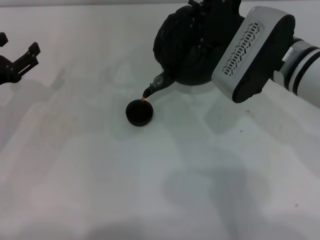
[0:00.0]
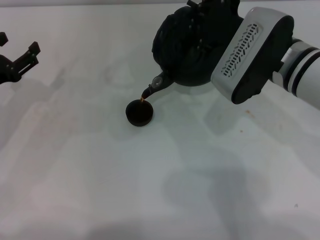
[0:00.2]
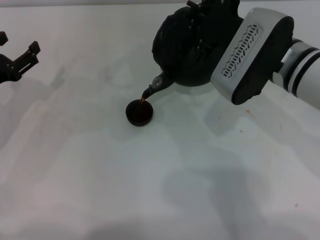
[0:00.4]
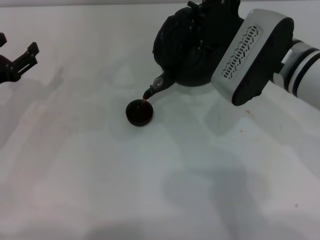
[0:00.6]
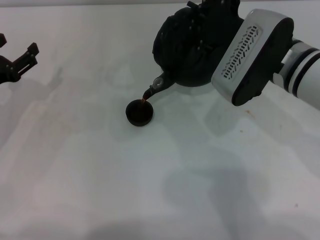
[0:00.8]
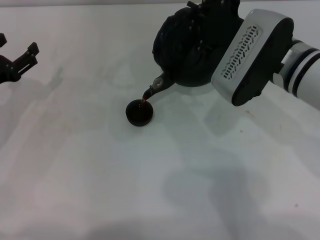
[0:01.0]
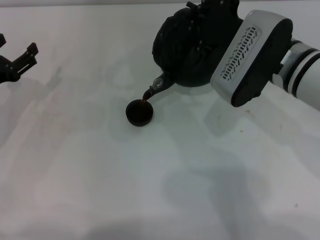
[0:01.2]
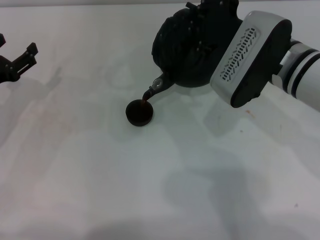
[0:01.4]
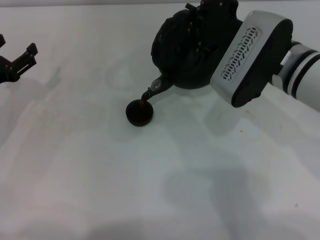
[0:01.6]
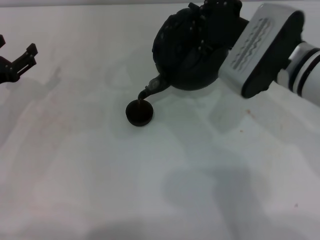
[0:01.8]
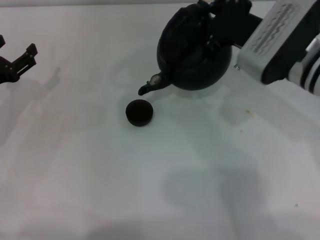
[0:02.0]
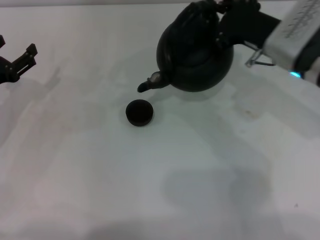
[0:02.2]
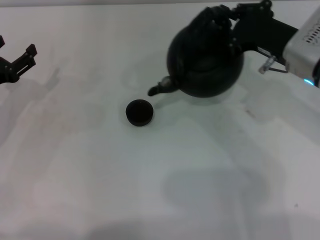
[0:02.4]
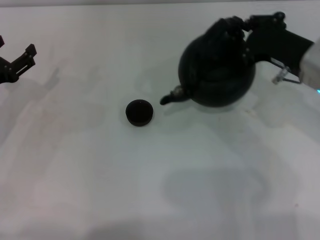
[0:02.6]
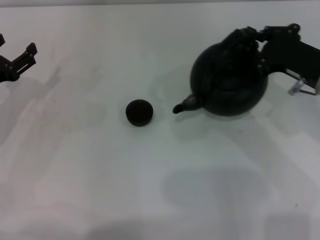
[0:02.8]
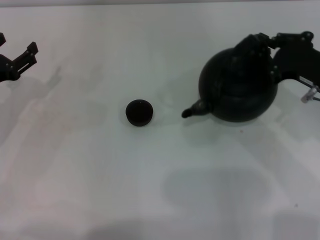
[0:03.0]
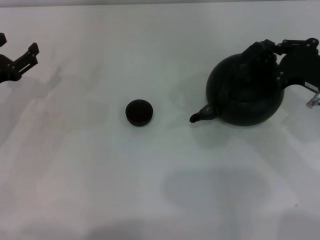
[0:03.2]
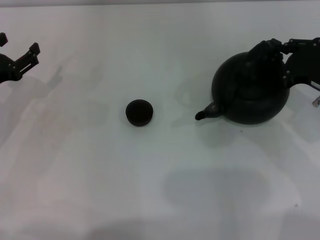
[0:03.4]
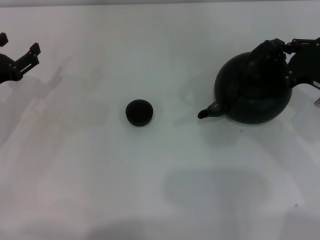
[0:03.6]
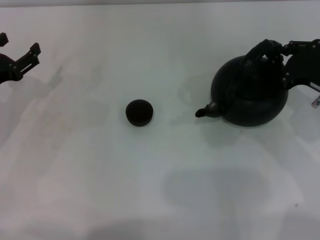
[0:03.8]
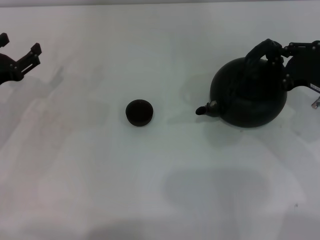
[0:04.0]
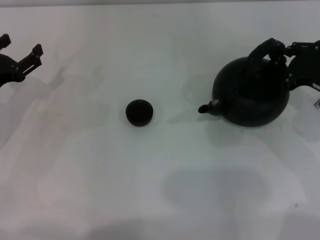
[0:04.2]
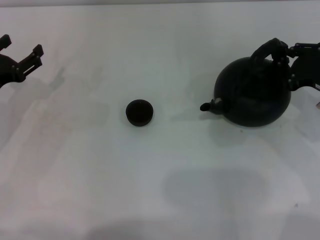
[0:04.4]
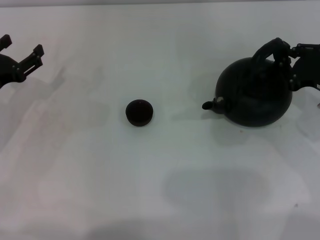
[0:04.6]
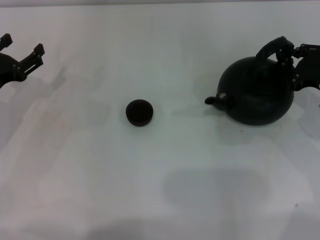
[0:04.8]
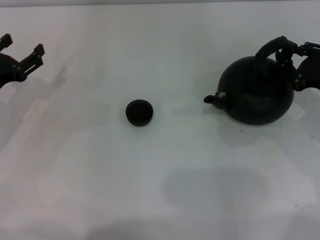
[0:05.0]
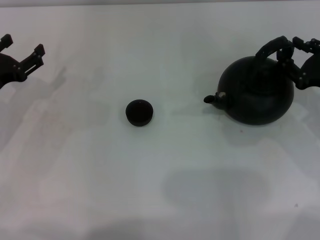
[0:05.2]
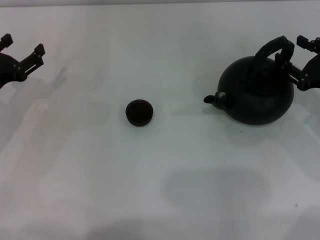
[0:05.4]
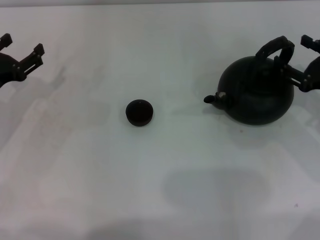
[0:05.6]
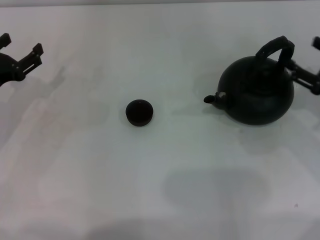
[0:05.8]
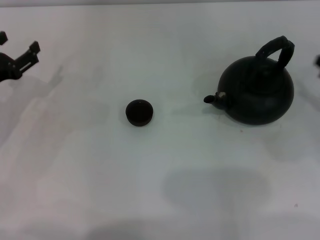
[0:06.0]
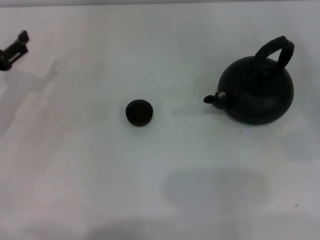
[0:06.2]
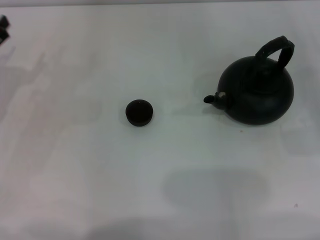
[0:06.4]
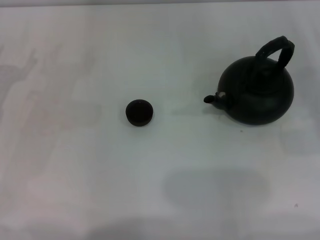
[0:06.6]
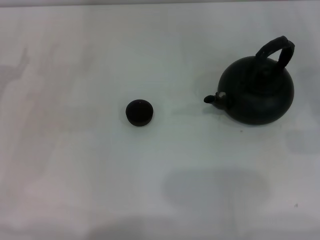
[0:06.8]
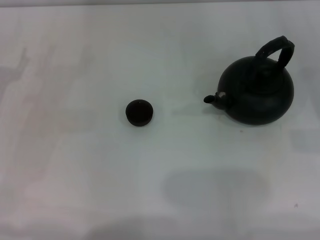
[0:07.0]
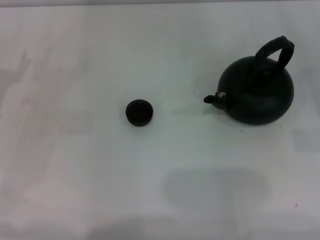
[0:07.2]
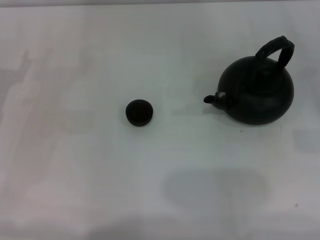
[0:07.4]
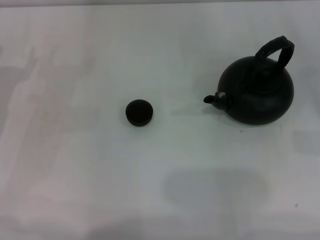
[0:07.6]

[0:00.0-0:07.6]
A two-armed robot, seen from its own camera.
Task of the whole recording: Grasp the handle of the teapot with one hand and pour tea into the teacup.
Step, 0:00.0 to 0:02.2: Pour tea into the teacup with the right gripper.
Step, 0:02.4 to 0:05.6: Put down the teapot with the right gripper.
0:00.0 to 0:01.6: Neither gripper changes place.
0:01.6 to 0:03.0: The right gripper goes about 10 cm to the right.
0:03.0 to 0:04.6: The grippers stay close to where they were, moving slightly.
0:04.6 to 0:06.0: The right gripper goes some 5 cm to the right, and opens its fingers.

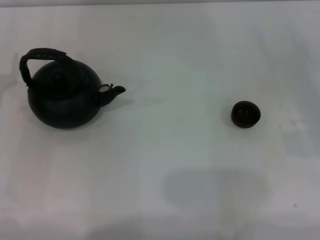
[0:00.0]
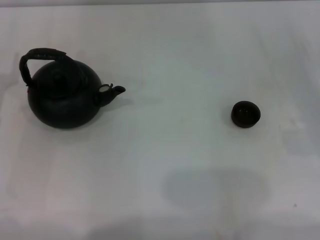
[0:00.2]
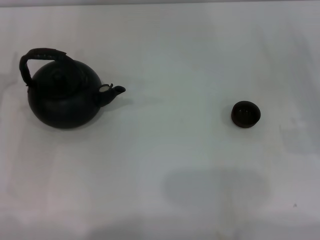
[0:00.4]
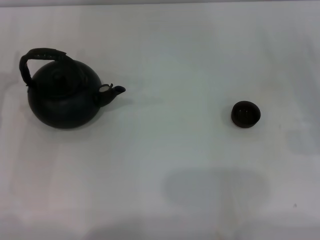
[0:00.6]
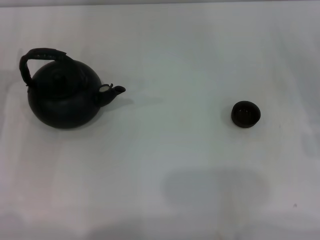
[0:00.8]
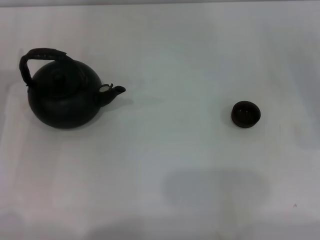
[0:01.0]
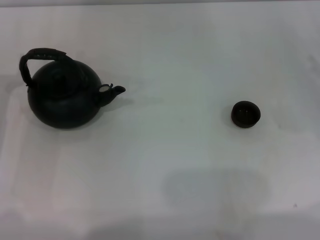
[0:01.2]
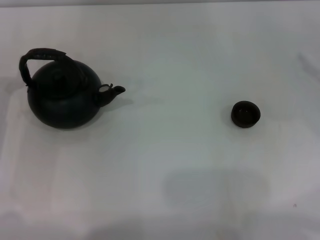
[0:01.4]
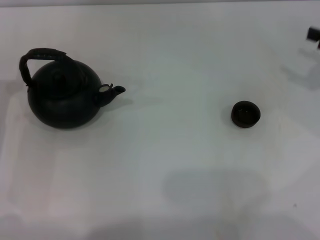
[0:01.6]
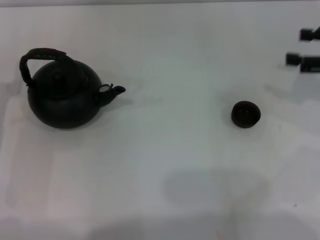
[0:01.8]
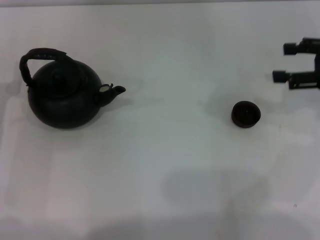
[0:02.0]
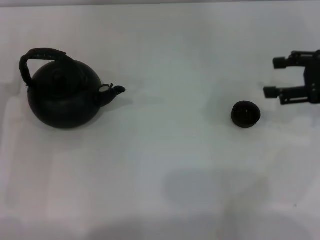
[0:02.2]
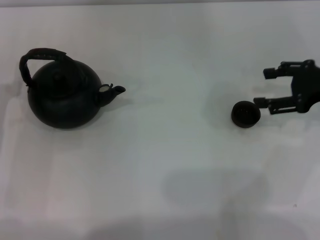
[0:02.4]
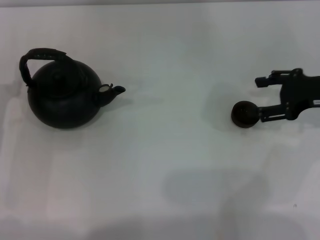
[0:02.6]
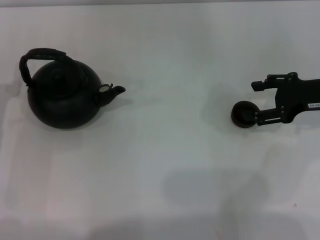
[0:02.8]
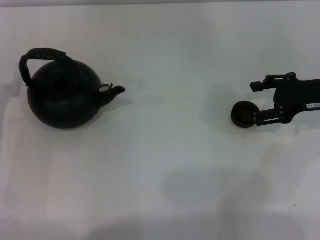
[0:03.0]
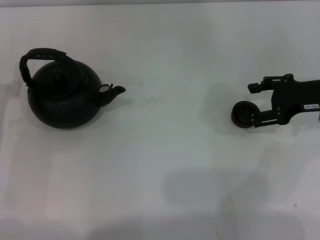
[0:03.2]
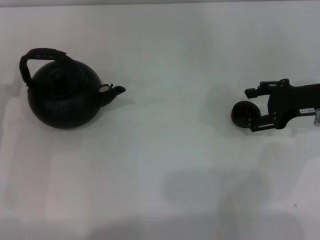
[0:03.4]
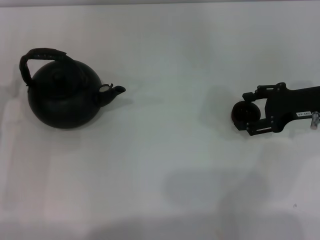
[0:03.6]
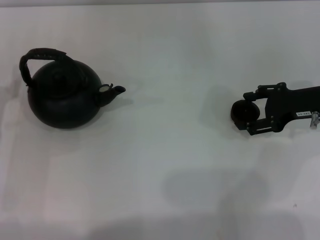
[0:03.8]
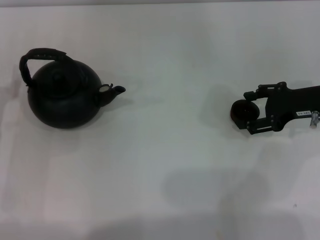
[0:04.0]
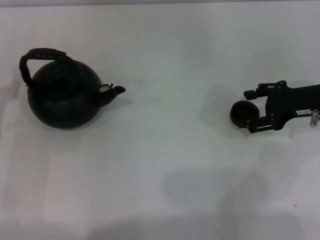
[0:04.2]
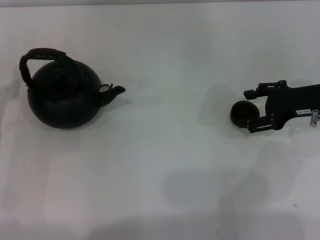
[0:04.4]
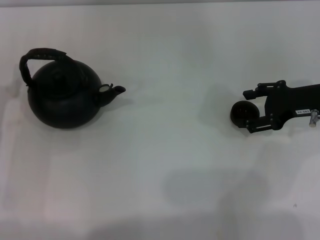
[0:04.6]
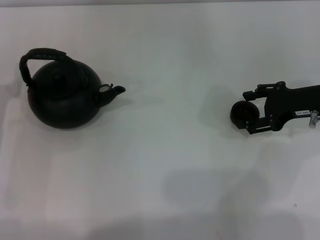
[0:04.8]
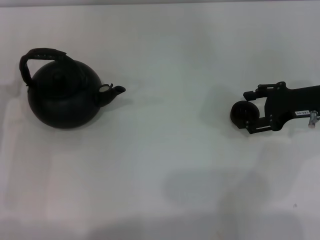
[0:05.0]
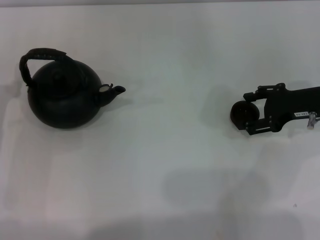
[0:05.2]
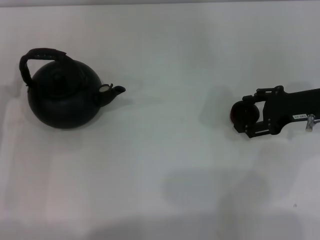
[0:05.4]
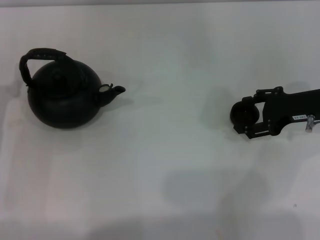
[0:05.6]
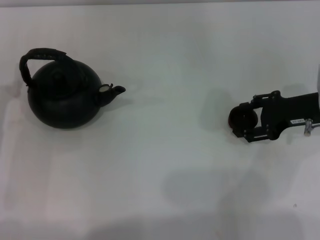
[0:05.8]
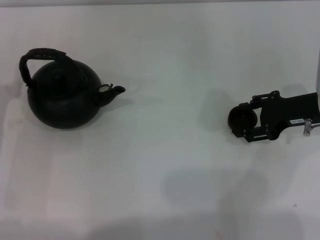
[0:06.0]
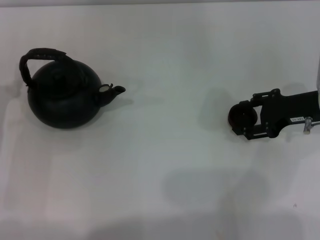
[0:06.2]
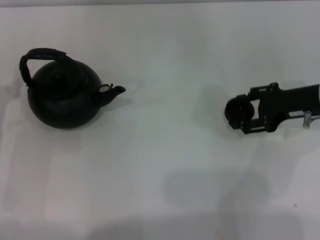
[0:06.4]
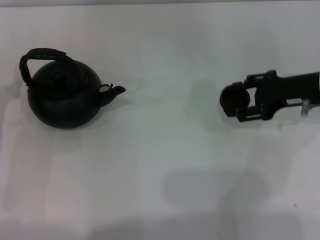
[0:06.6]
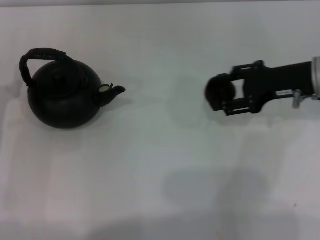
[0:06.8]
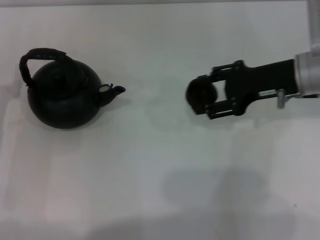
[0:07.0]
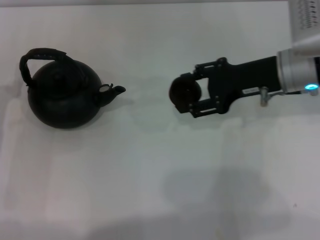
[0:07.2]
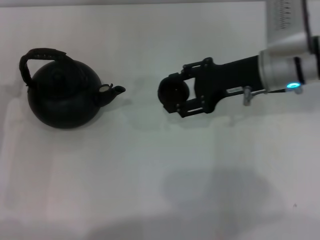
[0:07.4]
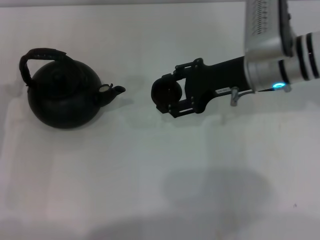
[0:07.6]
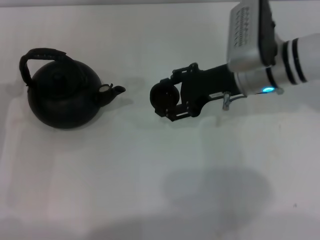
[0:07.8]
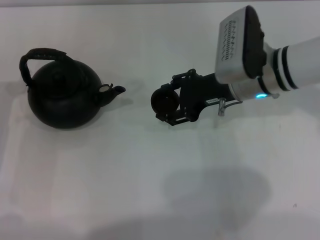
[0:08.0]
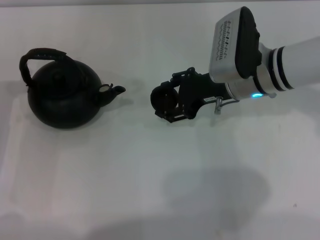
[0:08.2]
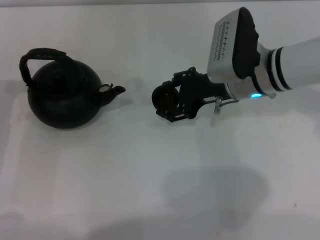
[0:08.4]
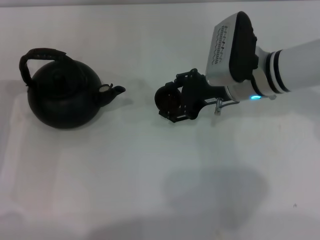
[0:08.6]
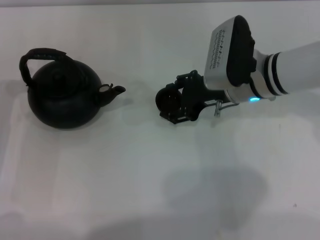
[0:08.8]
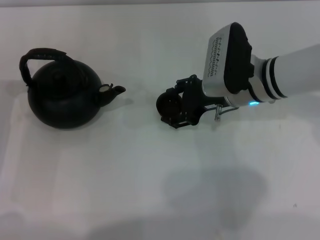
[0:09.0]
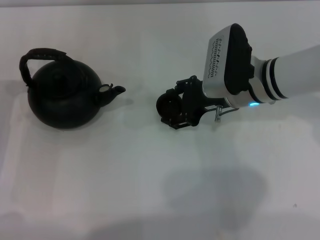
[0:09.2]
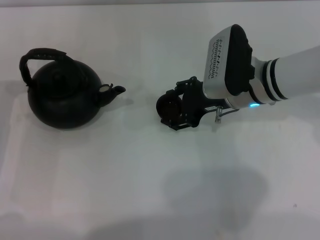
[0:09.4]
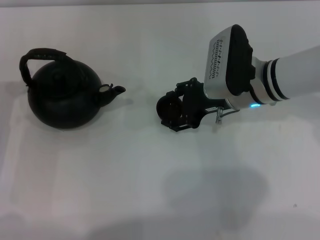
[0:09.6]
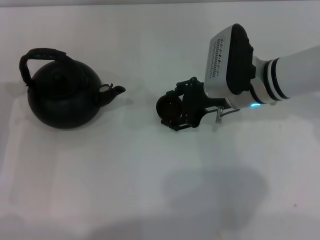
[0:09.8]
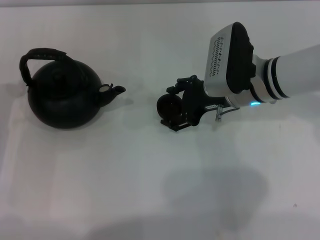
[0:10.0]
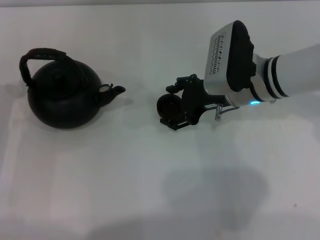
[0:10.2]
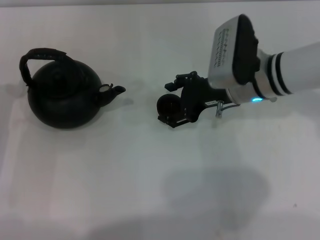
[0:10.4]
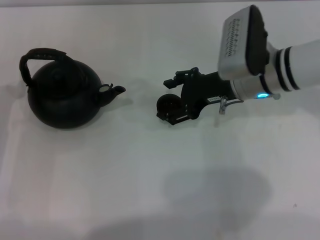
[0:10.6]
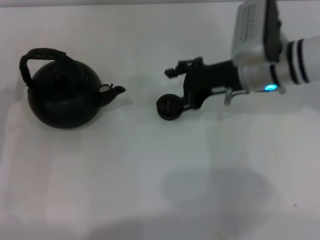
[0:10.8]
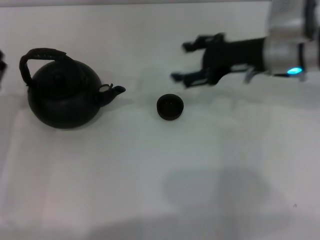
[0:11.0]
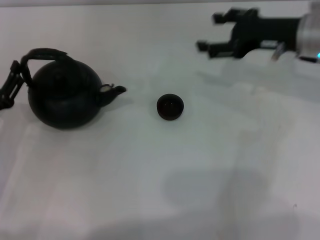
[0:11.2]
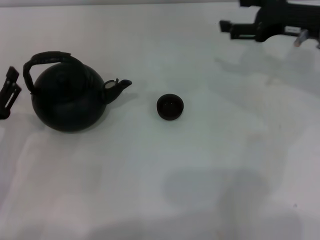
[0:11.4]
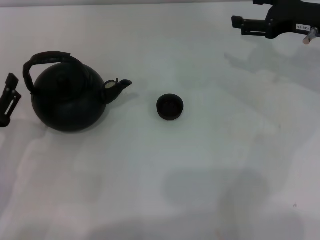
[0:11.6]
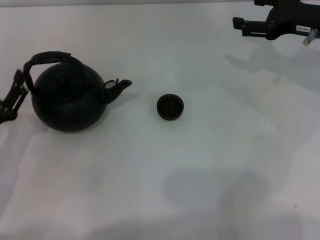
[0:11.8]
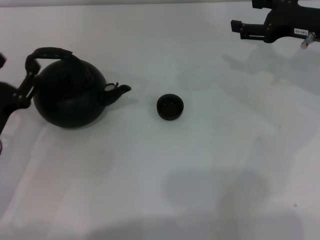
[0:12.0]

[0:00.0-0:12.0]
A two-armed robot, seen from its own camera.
Task of the whole recording: Grasp the handle of the teapot with one hand and pour tea into the teacup.
Step, 0:00.0 to 0:07.0: Pick up the teacup with the right gripper.
Step, 0:07.2 to 0:10.2: Place the teacup in the center of view with the right gripper.
0:01.6 to 0:03.0: The right gripper is displaced to the left by about 10 cm.
0:03.0 to 0:04.4: There are only small adjustments of the grippers.
0:04.4 to 0:06.0: The right gripper closes its fingers.
0:06.0 to 0:07.6: The right gripper shifts roughly 10 cm to the left, and closes its fingers.
0:07.6 to 0:09.0: The grippers make only small movements.
0:09.0 to 0:10.4: The right gripper opens its fingers.
0:10.4 to 0:12.0: The right gripper travels to the right by approximately 15 cm.

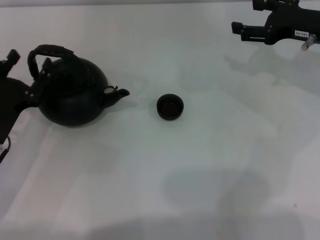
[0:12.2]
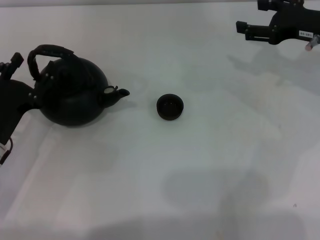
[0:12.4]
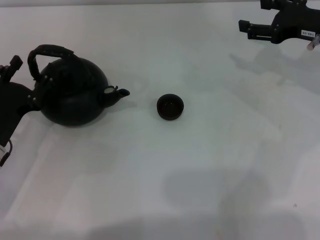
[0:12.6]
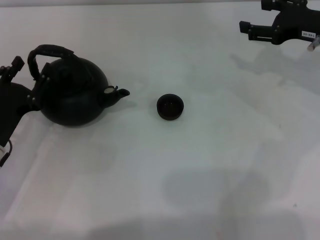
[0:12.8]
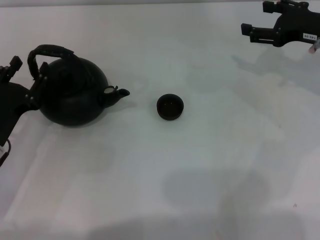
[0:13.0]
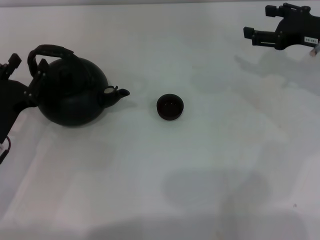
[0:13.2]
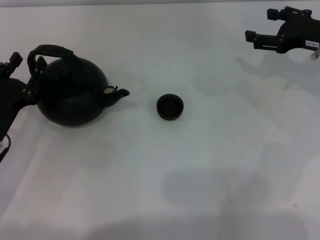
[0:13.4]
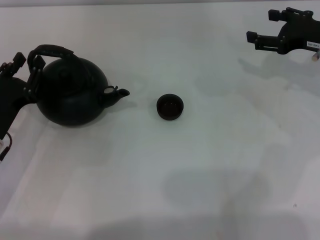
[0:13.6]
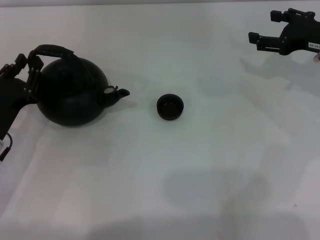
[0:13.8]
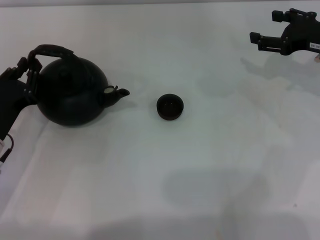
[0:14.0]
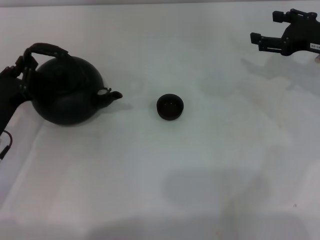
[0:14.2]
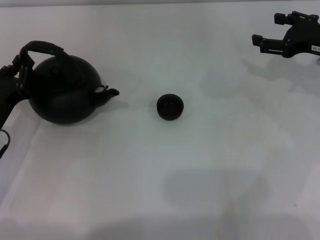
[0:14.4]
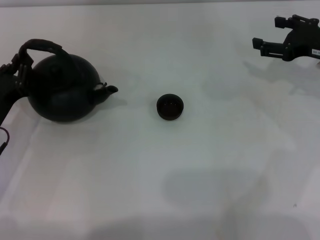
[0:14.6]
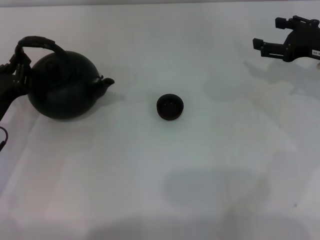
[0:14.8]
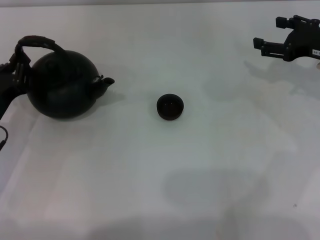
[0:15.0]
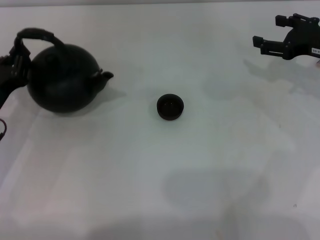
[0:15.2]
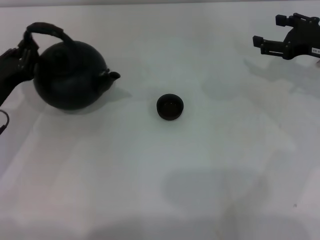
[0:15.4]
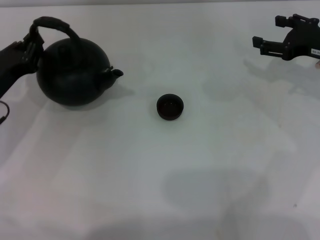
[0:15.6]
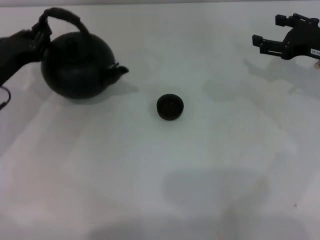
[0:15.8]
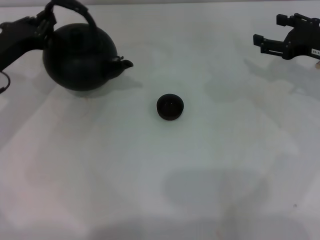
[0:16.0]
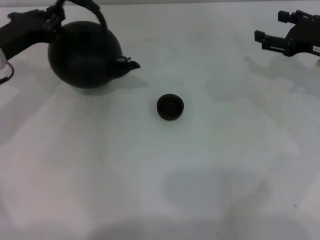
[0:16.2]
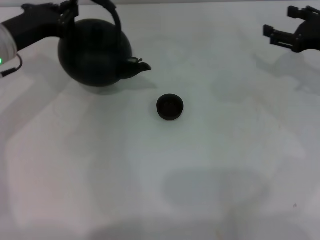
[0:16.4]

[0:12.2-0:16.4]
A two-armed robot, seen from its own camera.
Task of the whole recording: Grasp the handle of the teapot with one hand and pour tea into the teacup.
Step, 0:12.2 to 0:15.4: Pick up the teapot with the left gripper.
0:12.2 to 0:13.6: The grippers move only a little.
0:13.6 to 0:15.0: The left gripper closes up.
0:15.0 to 0:16.4: The left gripper goes roughly 15 cm forward and upward.
